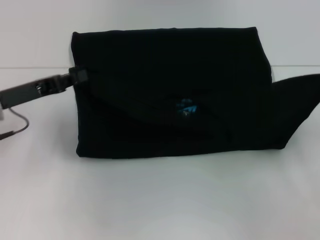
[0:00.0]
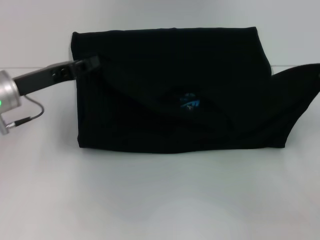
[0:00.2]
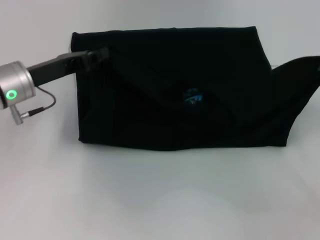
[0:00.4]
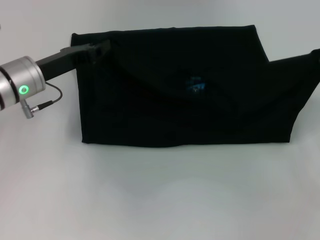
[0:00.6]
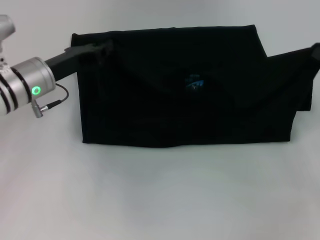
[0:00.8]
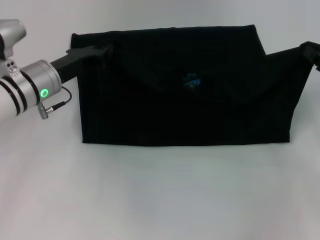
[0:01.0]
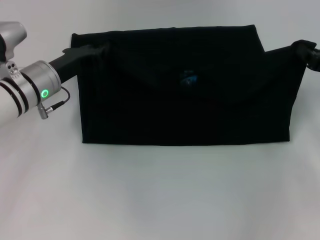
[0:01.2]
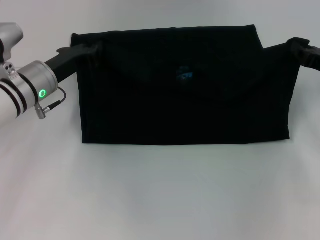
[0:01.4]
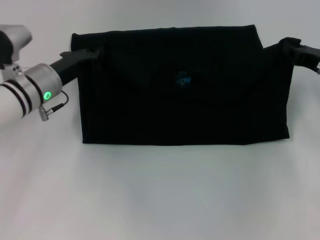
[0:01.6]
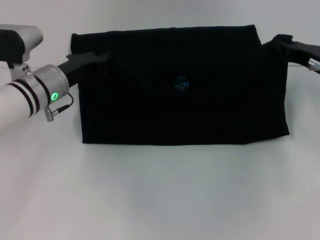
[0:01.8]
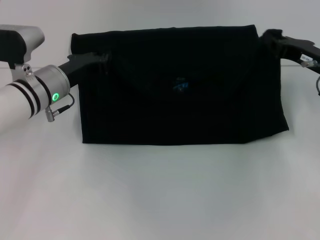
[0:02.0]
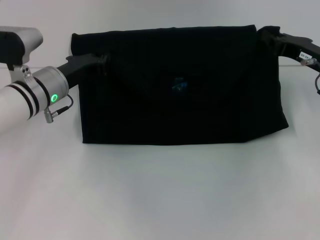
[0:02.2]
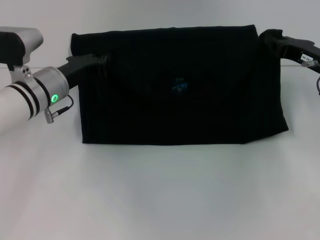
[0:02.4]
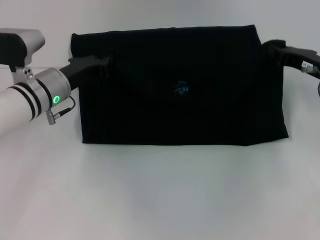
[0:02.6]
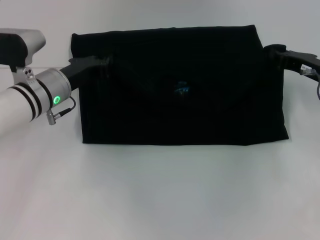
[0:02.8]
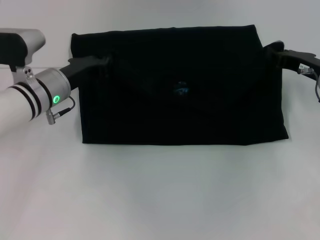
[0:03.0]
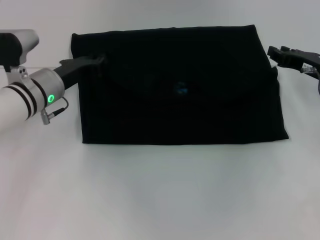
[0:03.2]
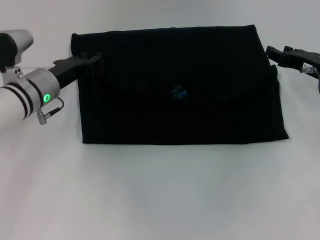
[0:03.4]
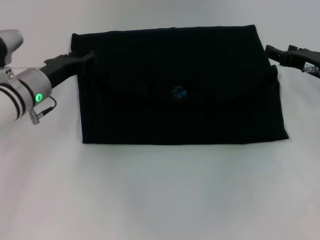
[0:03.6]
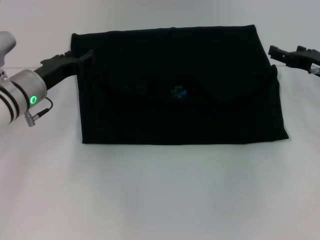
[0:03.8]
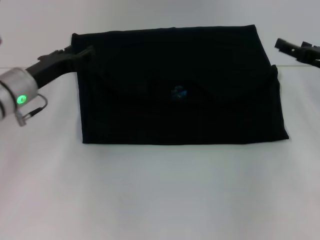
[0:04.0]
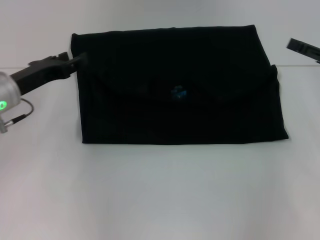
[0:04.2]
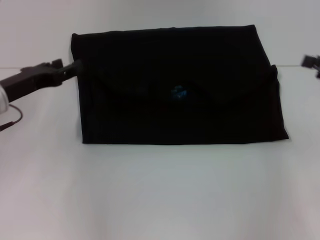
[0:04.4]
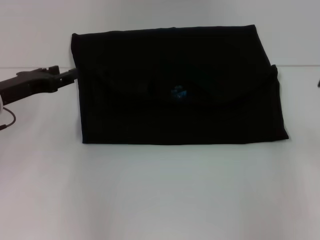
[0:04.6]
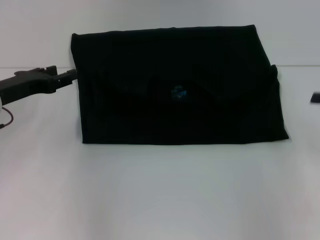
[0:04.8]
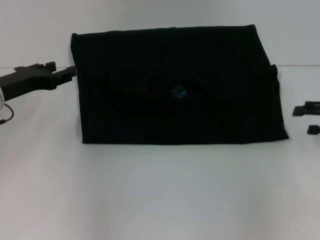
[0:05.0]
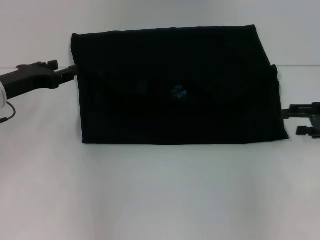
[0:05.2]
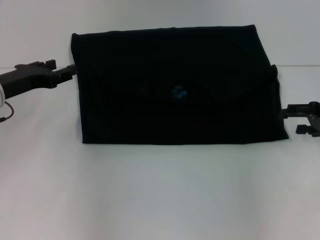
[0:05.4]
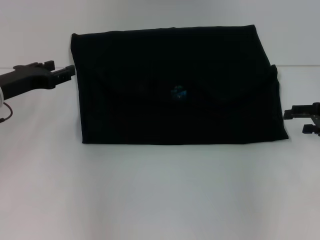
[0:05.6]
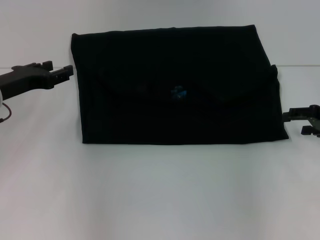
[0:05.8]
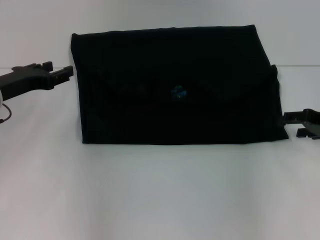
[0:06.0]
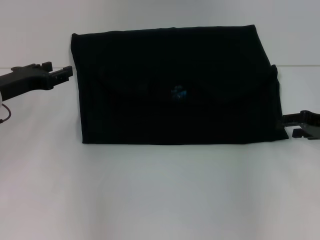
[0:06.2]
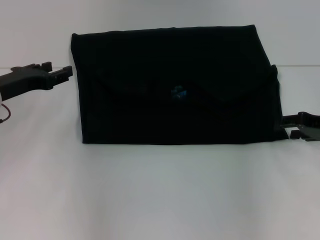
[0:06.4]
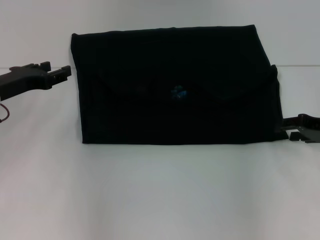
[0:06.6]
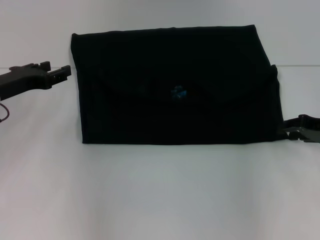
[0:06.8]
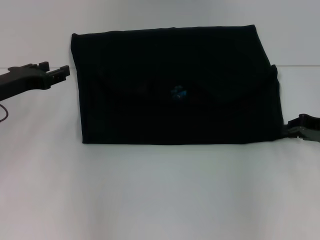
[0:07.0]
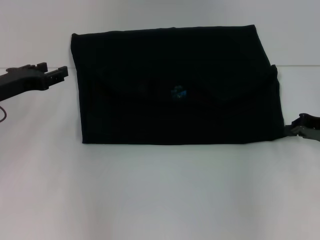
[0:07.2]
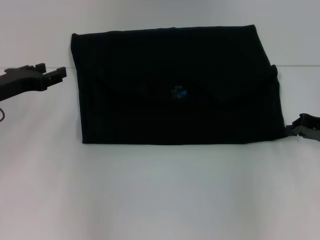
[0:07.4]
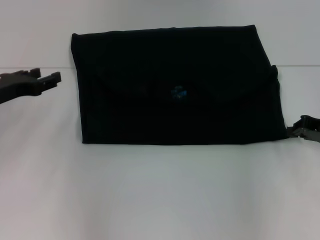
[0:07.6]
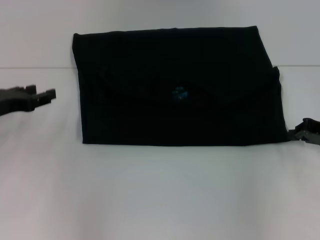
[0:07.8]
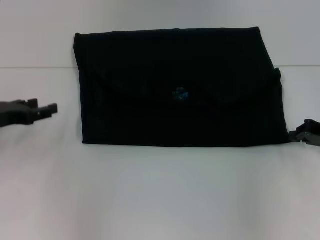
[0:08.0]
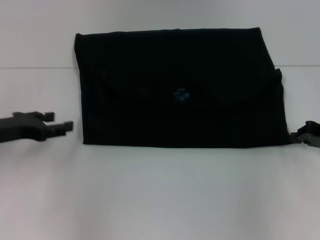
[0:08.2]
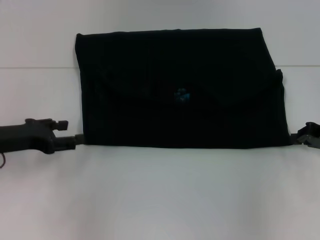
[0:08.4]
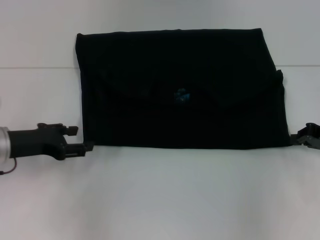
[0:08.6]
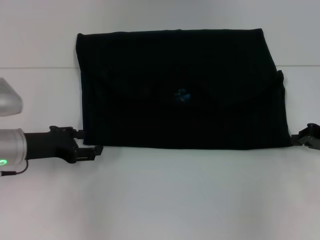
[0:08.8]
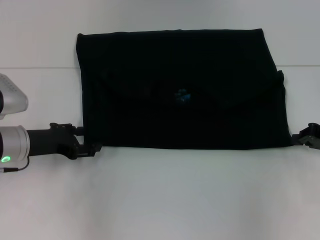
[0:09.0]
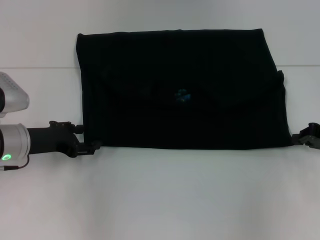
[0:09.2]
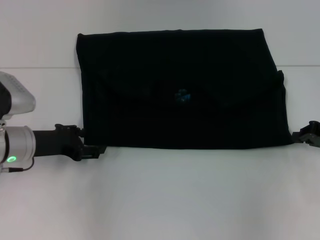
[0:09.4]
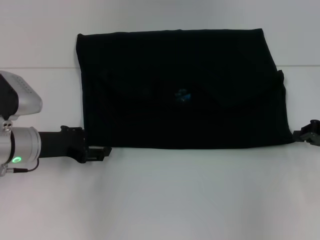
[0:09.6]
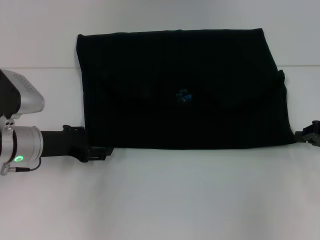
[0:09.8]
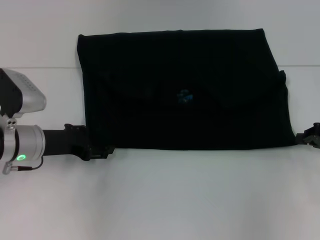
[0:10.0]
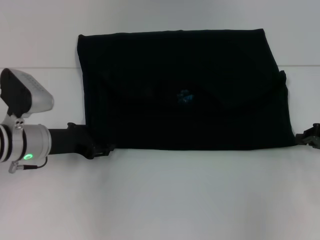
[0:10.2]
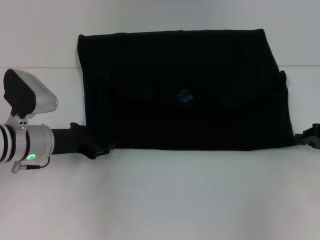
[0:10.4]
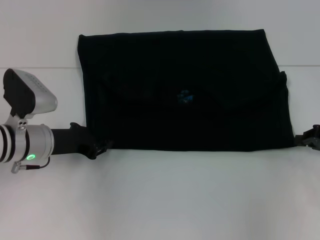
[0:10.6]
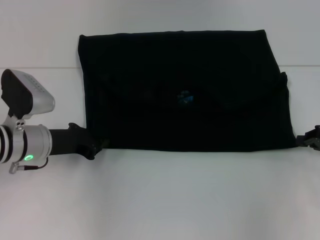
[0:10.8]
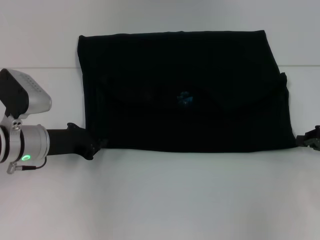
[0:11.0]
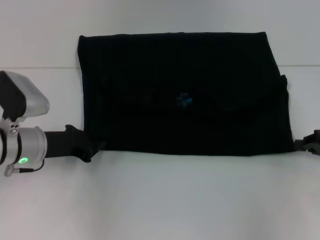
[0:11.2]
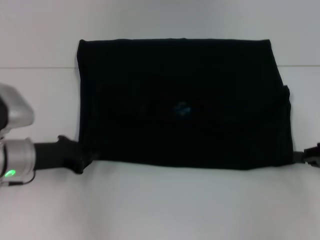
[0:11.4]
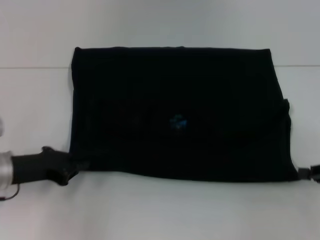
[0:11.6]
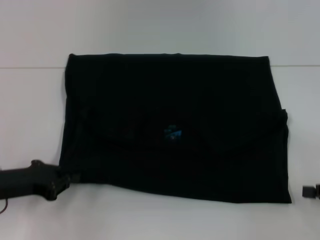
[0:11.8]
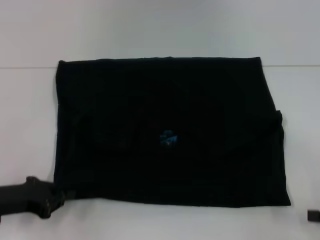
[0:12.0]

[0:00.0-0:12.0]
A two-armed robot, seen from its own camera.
Step, 0.0 to 4.0 s: Fold the clothes with your left hand.
Step, 0.0 to 4.0 s: Fold the clothes with your right hand.
0.0 to 1.6 s: The right gripper travels forward and to the left by approximately 15 cm, while the left gripper goes some 10 cm to the right and forward.
1.6 to 3.0 s: The grippers make only small movements.
3.0 to 4.4 s: The left gripper shifts roughly 10 cm to the left, and opens up. The right gripper shifts about 10 cm to the right and backward, and opens.
4.4 to 6.0 s: The right gripper heads downward, covering about 5 cm.
6.0 to 7.6 s: The right gripper closes its fingers.
7.6 to 9.0 s: The left gripper moves downward, approximately 5 cm.
9.0 to 10.4 s: The grippers stay close to where they were, moving slightly.
10.4 to 12.0 s: The right gripper moves backward, some 10 cm, while the left gripper moves backward and to the left, about 10 cm, and closes.

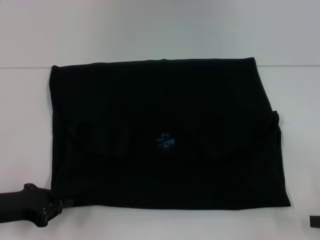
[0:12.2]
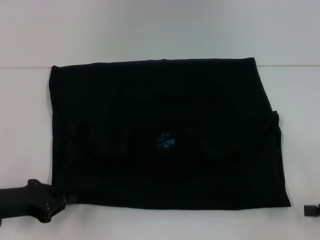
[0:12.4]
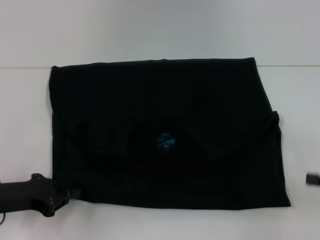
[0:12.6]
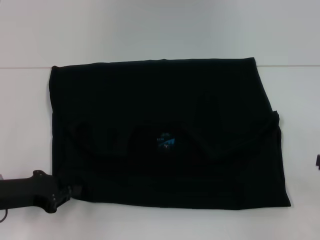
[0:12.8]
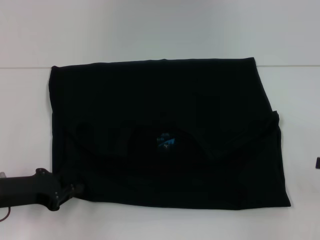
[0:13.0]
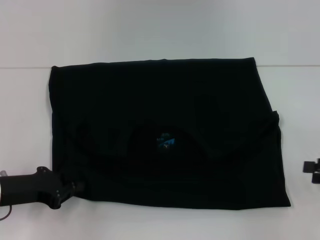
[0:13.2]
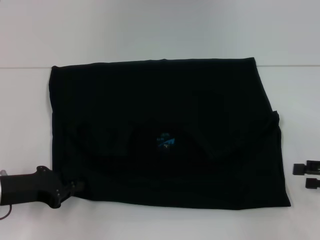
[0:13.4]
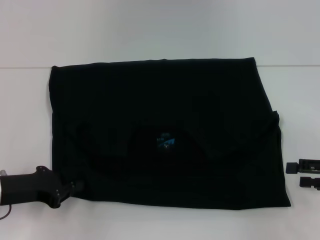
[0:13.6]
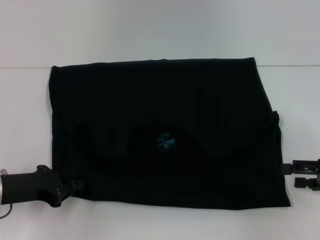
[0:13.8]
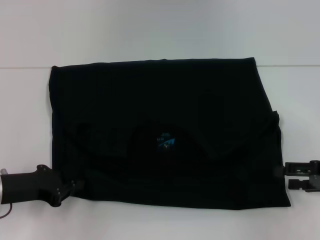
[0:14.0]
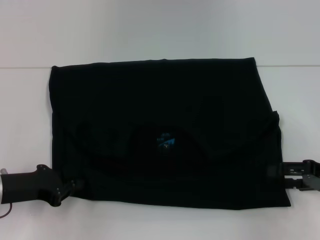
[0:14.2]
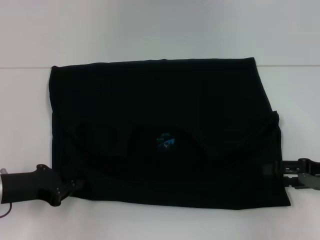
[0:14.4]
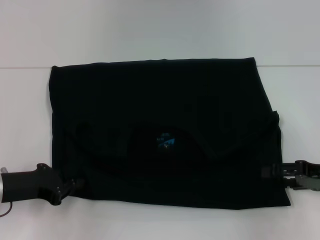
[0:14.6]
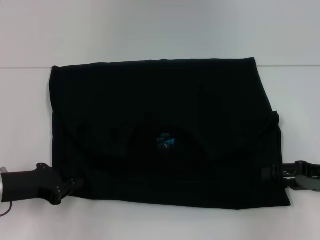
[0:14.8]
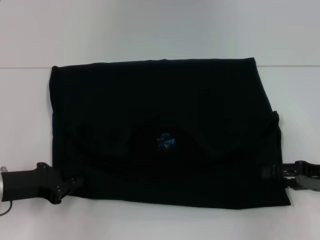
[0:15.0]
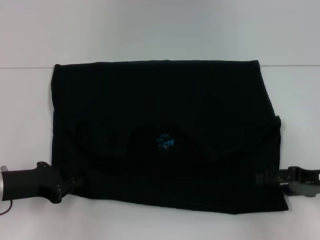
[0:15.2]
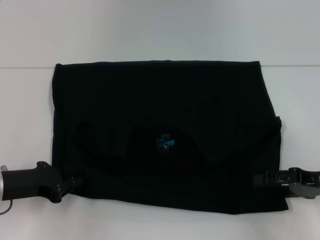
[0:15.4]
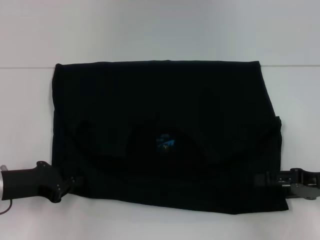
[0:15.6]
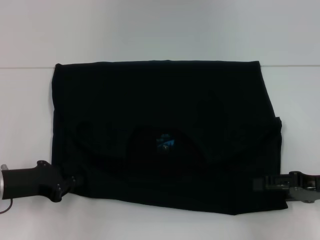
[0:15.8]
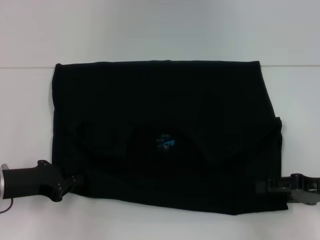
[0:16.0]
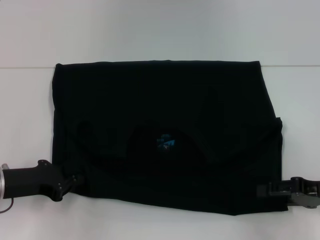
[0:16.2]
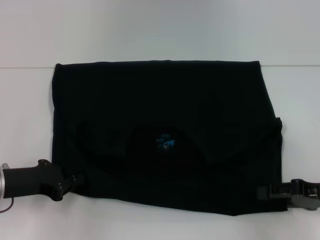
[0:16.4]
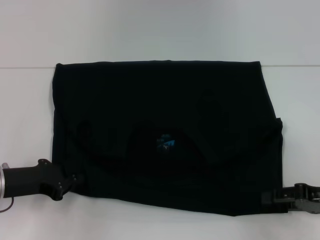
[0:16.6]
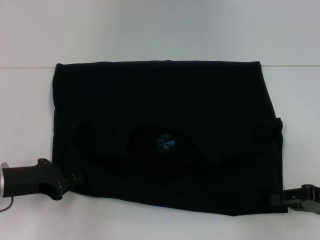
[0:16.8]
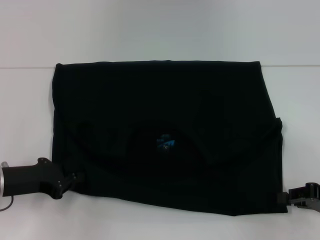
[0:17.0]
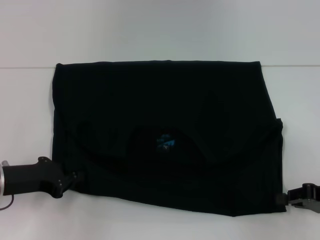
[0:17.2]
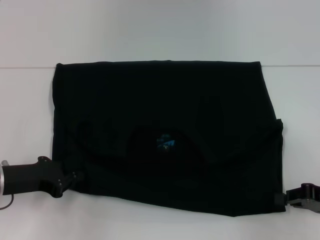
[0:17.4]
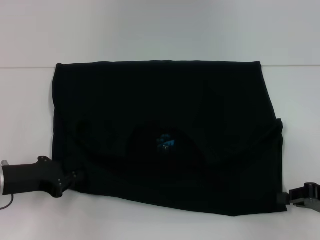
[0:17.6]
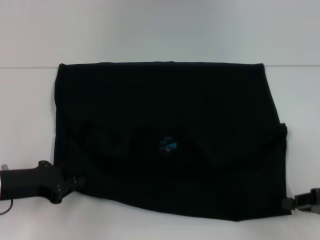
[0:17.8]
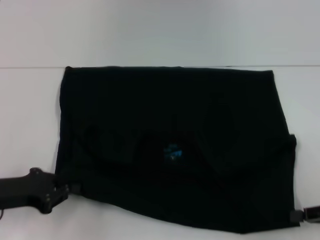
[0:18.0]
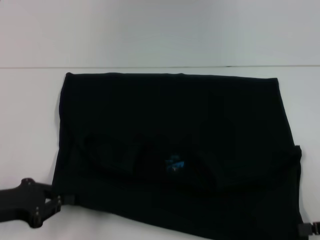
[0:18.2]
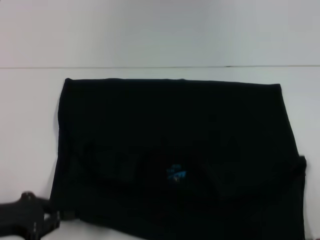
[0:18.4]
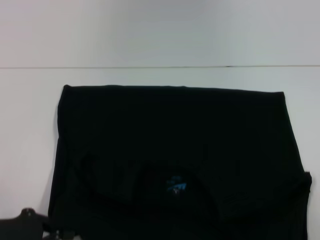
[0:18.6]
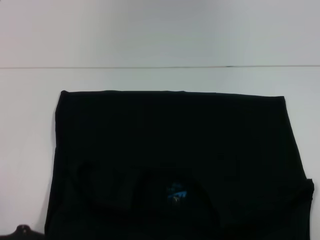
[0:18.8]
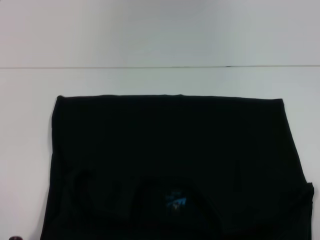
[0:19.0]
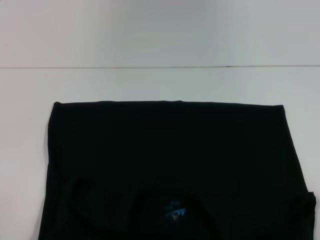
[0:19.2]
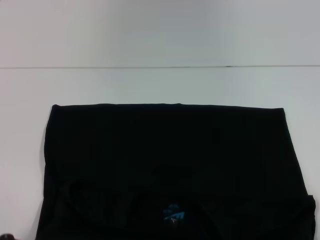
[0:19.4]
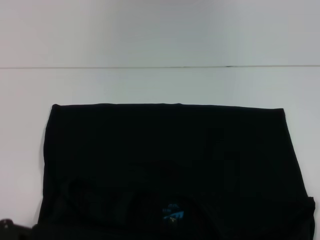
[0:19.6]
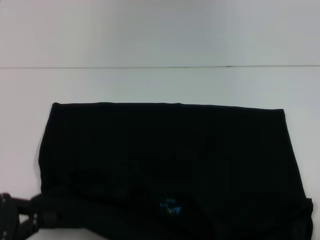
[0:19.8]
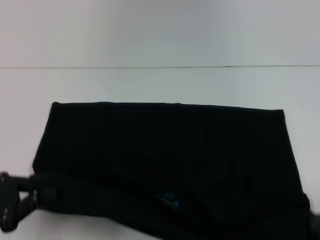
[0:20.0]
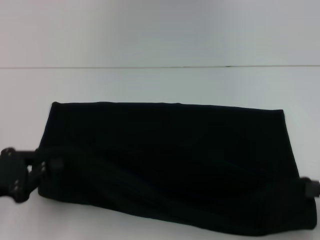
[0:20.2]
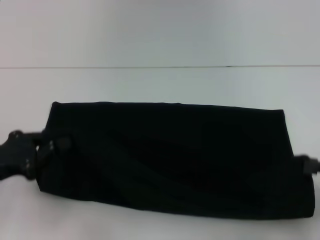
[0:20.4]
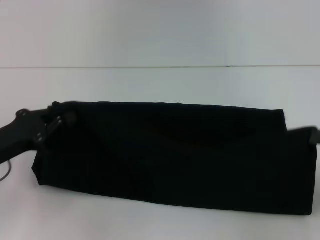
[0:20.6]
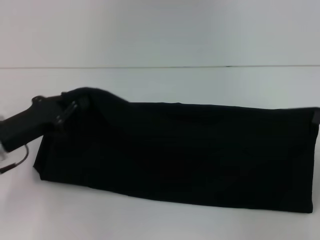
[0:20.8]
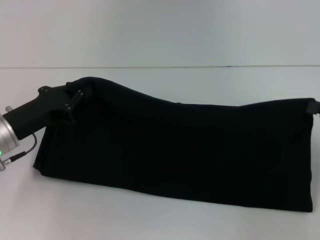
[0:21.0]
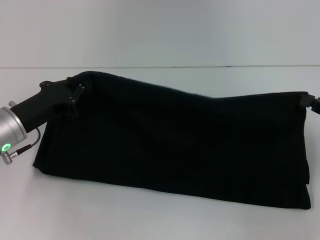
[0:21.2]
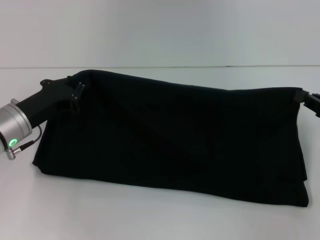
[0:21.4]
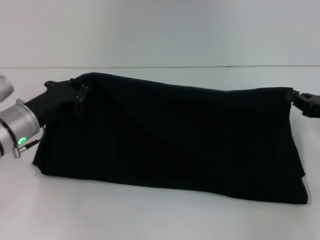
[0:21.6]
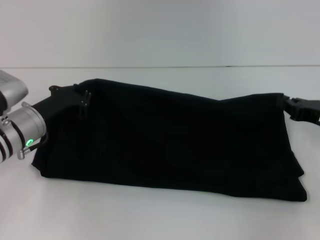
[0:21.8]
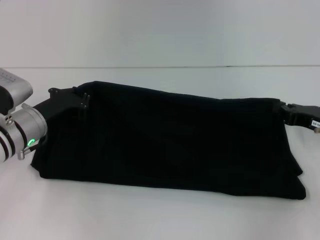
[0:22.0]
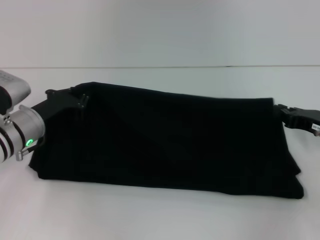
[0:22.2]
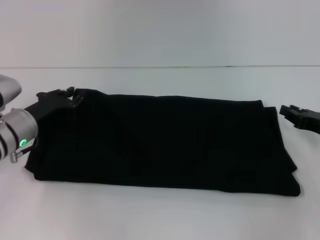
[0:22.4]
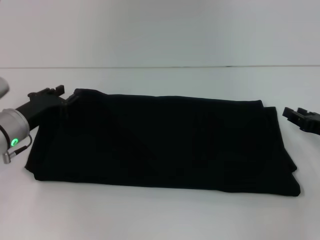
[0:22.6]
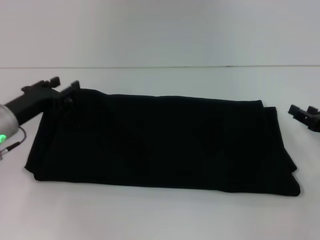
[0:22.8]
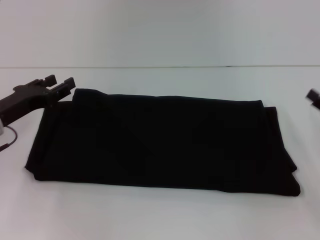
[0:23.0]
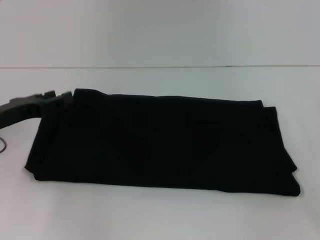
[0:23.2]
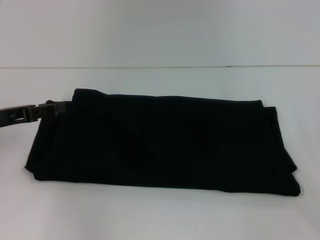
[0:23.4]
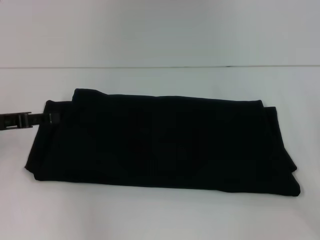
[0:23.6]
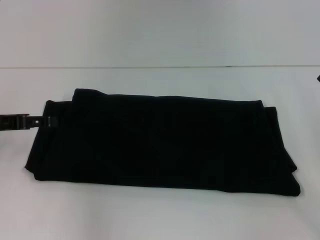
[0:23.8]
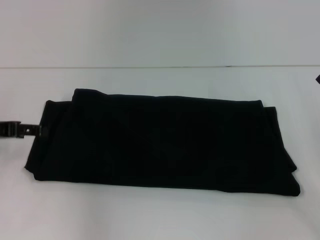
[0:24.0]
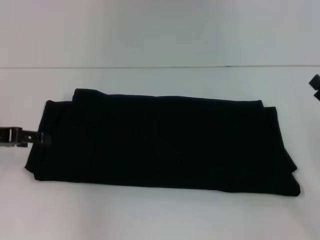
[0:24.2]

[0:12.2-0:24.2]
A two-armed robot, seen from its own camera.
Step, 12.2 to 18.8 s: Pull the clothes with your left hand.
Step, 12.2 to 18.8 s: Pull the clothes with your right hand.
Step, 19.0 to 23.0 s: Fold the clothes with your right hand.
12.2 to 13.8 s: The right gripper is displaced forward by approximately 5 cm, and opens.
13.8 to 16.6 s: The grippers make only small movements.
16.6 to 18.2 s: The right gripper changes place by approximately 5 cm, and closes; the left gripper shifts by about 5 cm.
18.2 to 19.8 s: The left gripper goes approximately 5 cm backward.
19.8 to 21.2 s: The left gripper shifts about 15 cm forward and to the right, while the right gripper is displaced forward by approximately 10 cm.
21.2 to 22.6 s: The right gripper is displaced downward by approximately 5 cm.
22.6 to 24.2 s: The right gripper heads backward, covering roughly 5 cm, and opens; the left gripper travels upward and to the left by approximately 10 cm, and opens.
